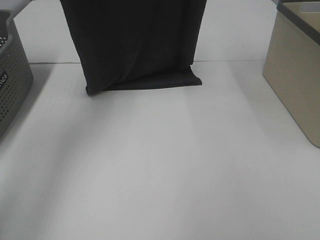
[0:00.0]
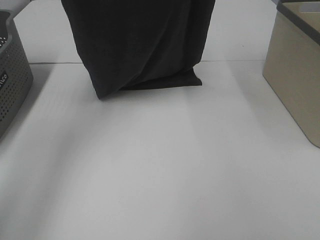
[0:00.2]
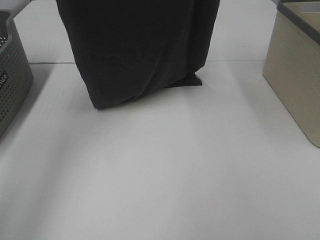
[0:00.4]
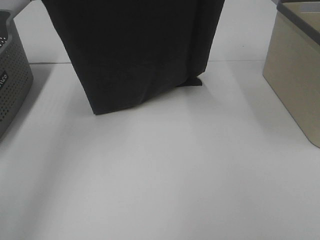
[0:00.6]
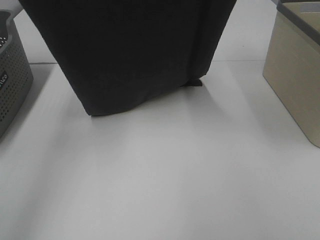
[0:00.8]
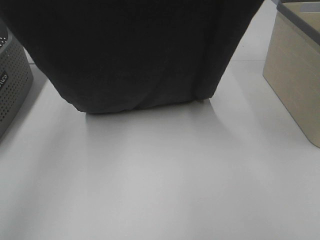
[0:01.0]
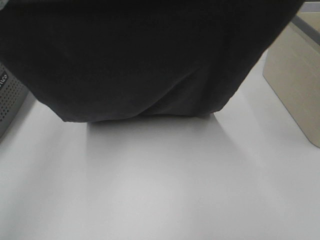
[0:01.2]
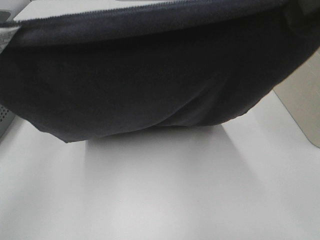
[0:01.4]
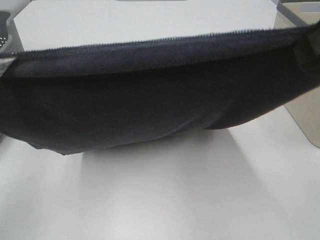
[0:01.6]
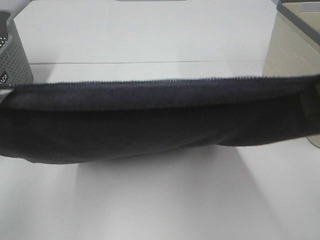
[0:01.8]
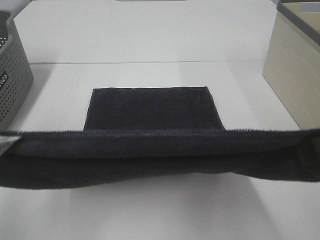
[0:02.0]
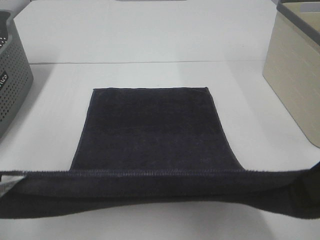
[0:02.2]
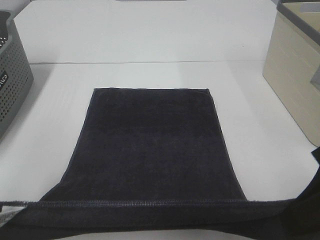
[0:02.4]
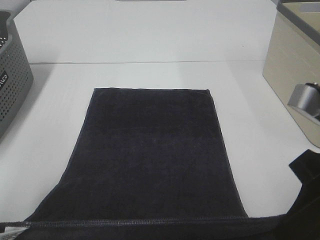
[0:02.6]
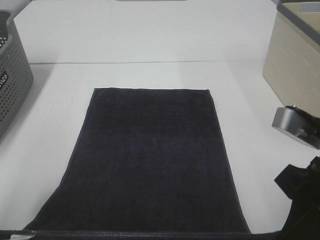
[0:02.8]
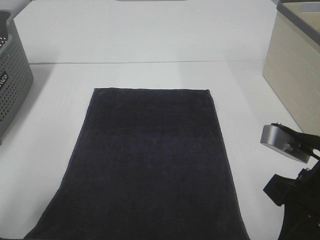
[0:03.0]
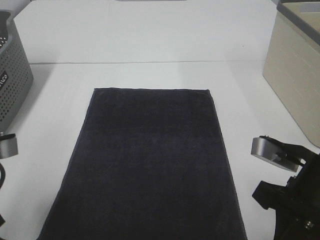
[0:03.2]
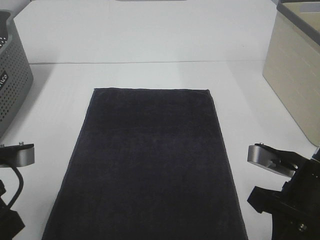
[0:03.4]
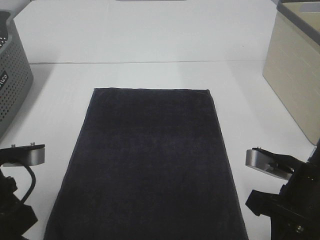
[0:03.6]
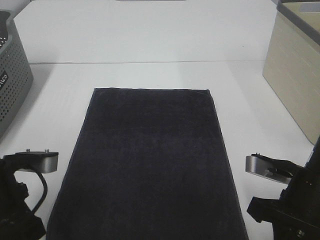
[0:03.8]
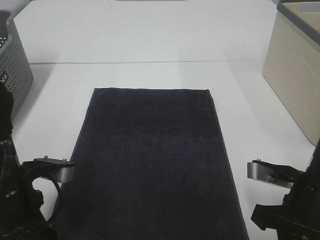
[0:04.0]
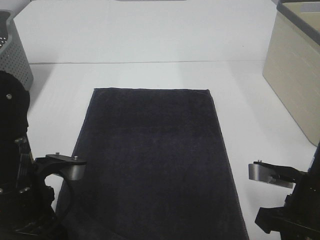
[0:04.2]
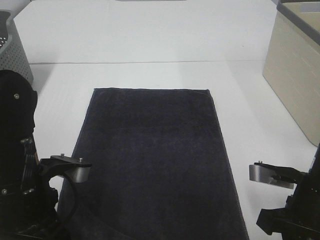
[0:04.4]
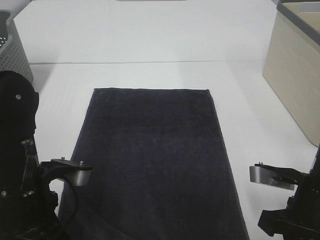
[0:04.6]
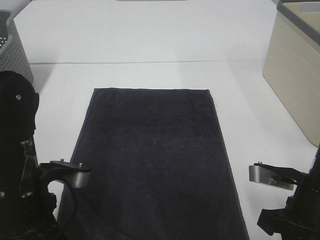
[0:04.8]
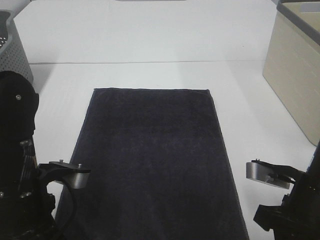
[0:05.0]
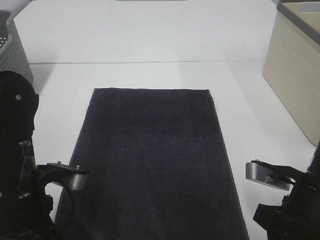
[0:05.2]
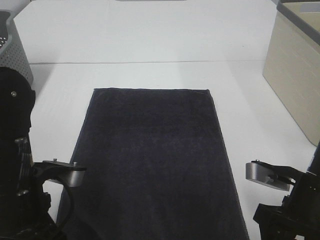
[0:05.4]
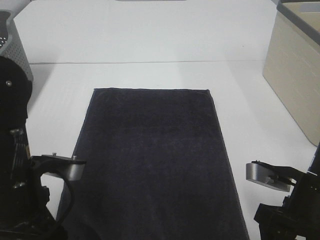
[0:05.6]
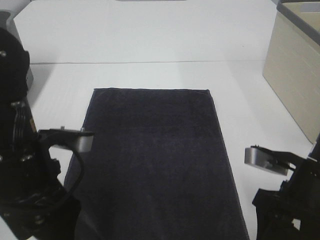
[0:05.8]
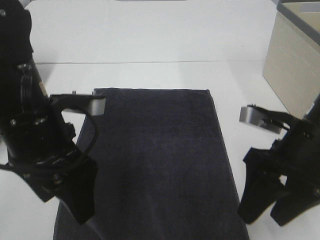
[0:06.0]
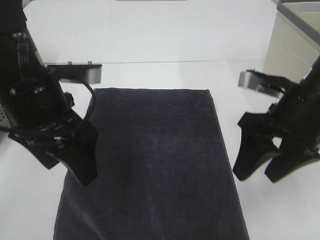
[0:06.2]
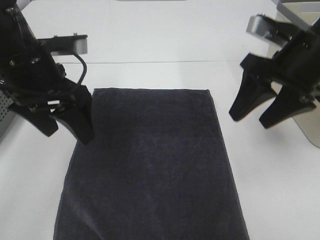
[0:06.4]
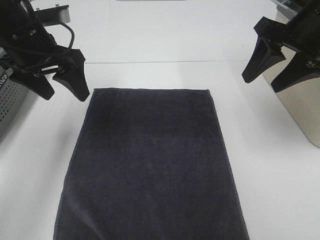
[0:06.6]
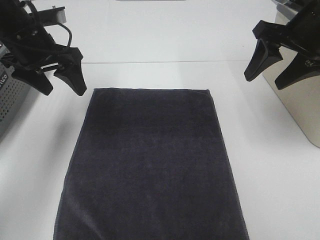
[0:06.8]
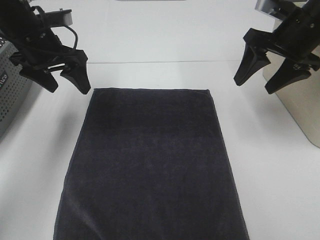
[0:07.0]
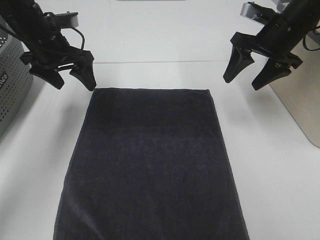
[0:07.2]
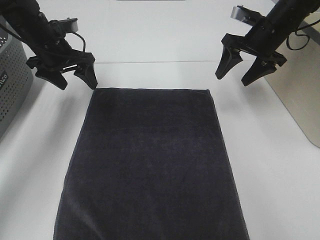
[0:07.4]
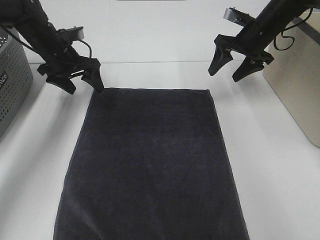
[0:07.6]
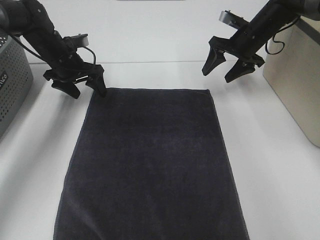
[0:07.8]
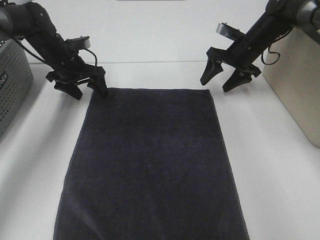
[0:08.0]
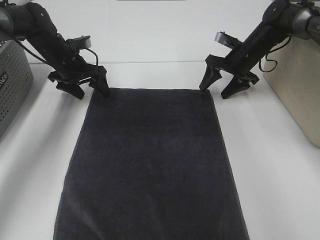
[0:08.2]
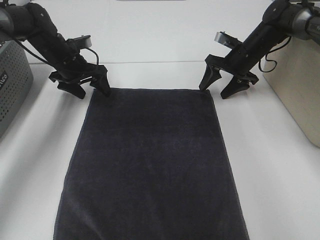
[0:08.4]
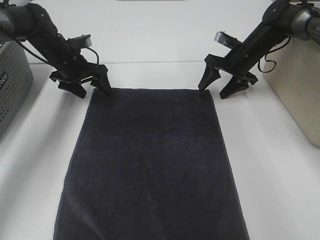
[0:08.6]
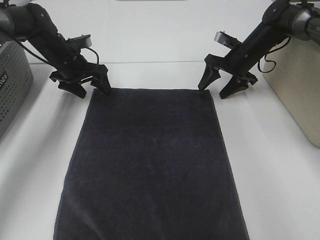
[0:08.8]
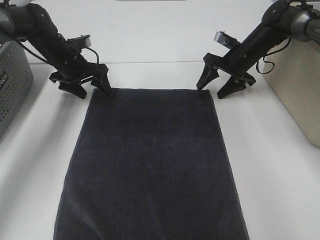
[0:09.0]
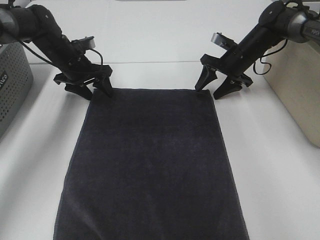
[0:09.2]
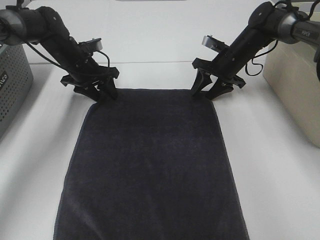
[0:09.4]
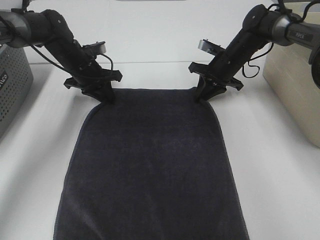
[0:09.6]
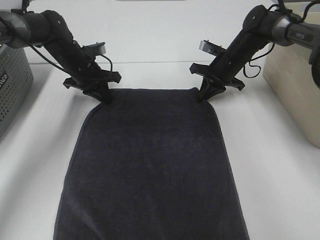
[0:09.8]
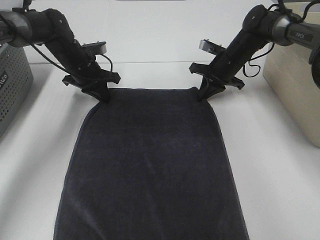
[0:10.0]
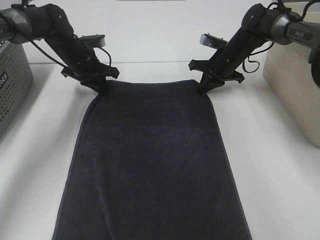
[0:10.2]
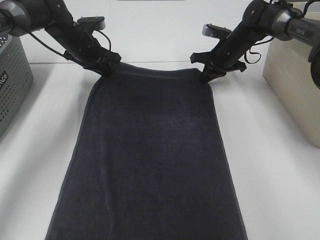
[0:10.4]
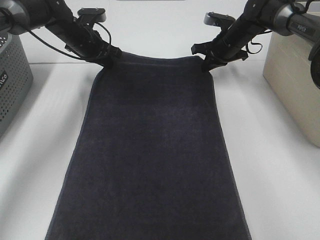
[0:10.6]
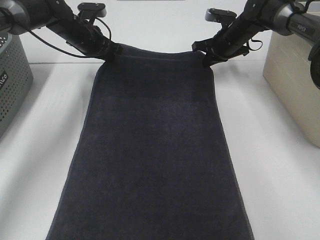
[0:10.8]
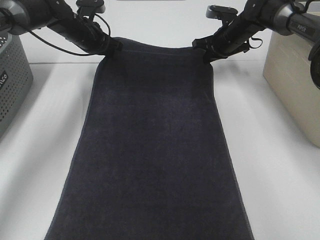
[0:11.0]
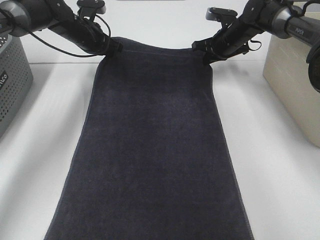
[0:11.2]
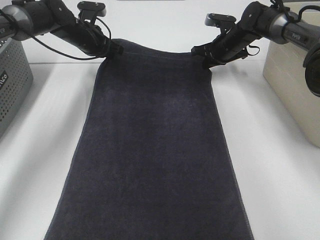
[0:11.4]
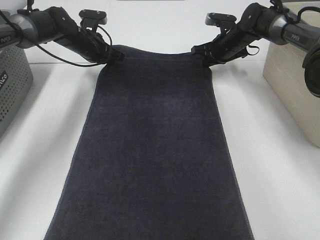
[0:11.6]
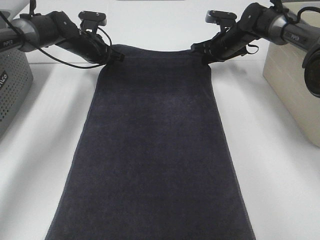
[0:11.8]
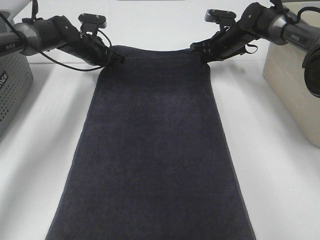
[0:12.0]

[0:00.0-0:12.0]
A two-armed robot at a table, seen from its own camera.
Task of the whole recording: Remove the towel and place it.
Step, 0.0 to 6.4 s: Left hand:adjust the gray towel.
Step, 0.0 to 6.4 s: Right hand:adjust the gray towel.
0.0 to 1.6 s: The left gripper travels backward and downward by approximately 25 cm. Meanwhile the right gripper heads backward, covering some 25 cm.
1.6 to 3.0 s: The grippers both shift downward by some 15 cm.
3.0 to 4.4 s: The right gripper travels downward by some 5 cm. The left gripper travels downward and to the right by approximately 10 cm.
4.4 to 6.0 s: Both grippers move upward, approximately 5 cm. The right gripper opens its fingers. The left gripper opens its fingers.
6.0 to 7.6 s: The grippers both shift forward by some 30 cm.
7.6 to 9.0 s: The right gripper shifts roughly 5 cm downward.
9.0 to 10.4 s: The right gripper closes, while the left gripper moves approximately 5 cm, and closes its fingers.
10.4 to 12.0 s: There are only small adjustments of the grippers.

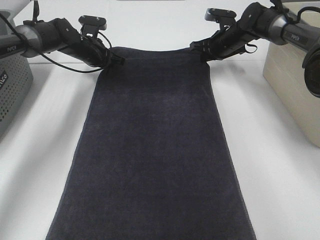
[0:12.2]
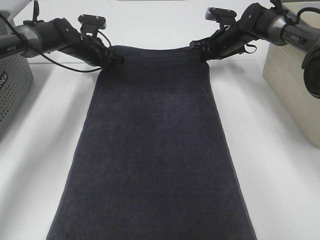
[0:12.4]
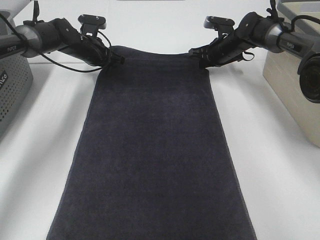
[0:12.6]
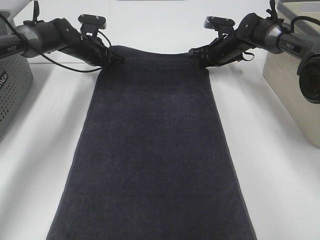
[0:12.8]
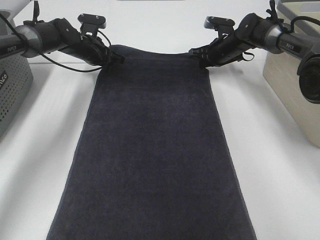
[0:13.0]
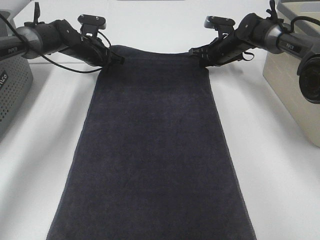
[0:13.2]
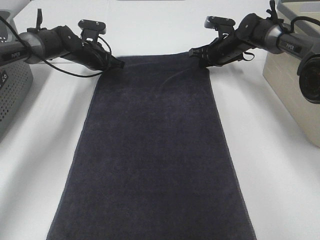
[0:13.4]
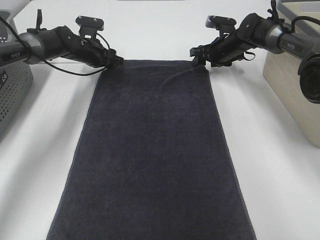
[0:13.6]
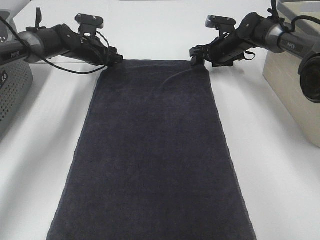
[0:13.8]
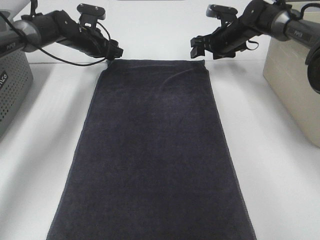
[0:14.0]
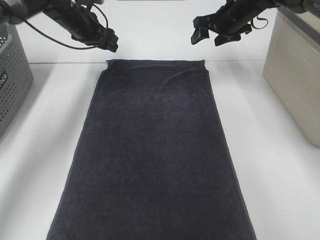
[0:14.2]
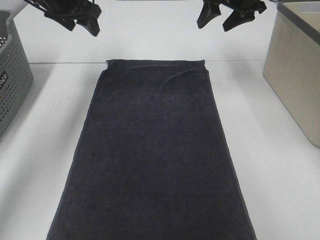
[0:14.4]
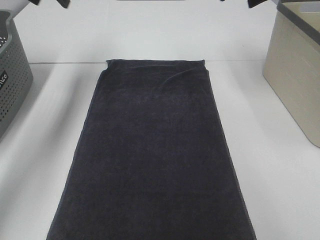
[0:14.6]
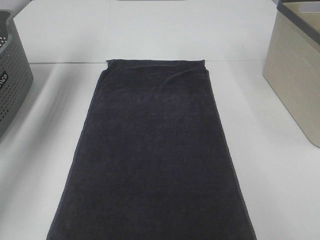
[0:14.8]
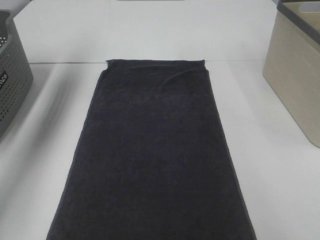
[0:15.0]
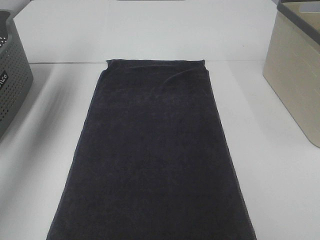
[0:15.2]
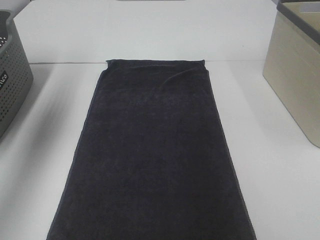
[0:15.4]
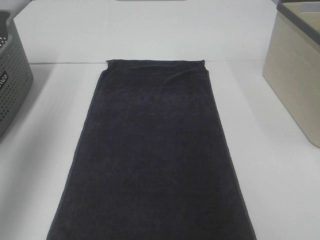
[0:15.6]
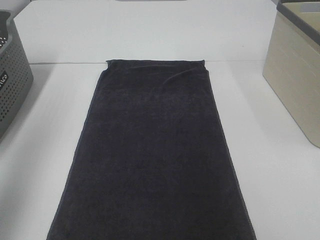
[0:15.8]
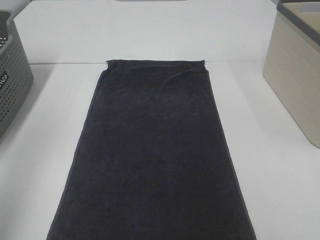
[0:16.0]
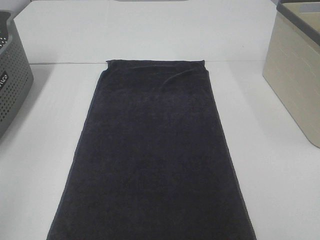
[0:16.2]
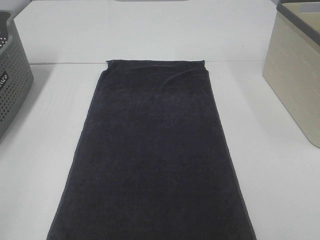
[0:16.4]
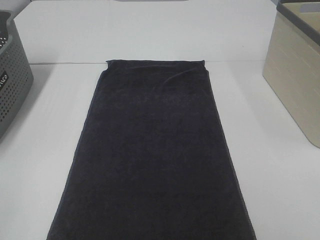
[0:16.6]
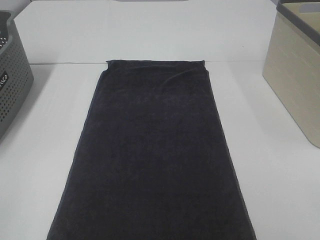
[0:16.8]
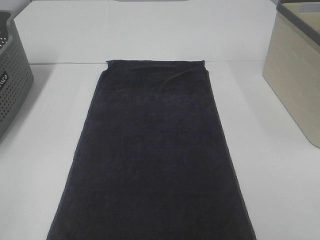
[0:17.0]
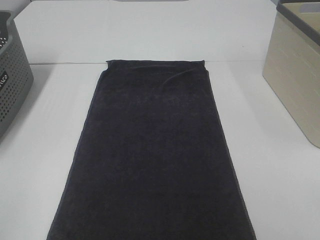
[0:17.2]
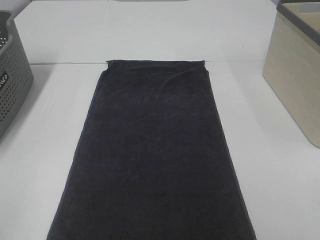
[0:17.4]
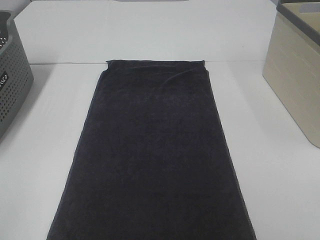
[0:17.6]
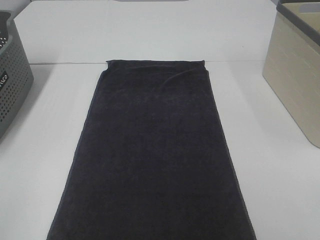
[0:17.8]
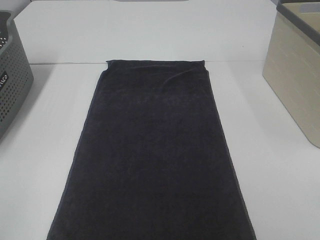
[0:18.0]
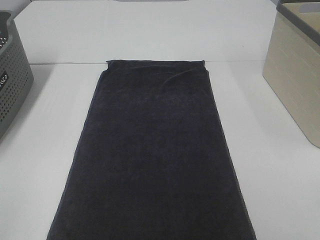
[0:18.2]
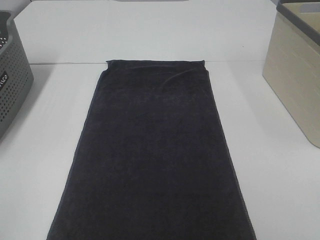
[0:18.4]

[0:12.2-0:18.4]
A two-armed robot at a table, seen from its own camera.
Task of the whole recording: Remove the towel and place it.
12.2 to 13.8 s: The left gripper opens up; the right gripper opens its fingers.
13.8 to 15.4 s: Both grippers travel together upward and backward, approximately 40 cm.
15.4 to 16.8 s: The left gripper shifts roughly 35 cm backward.

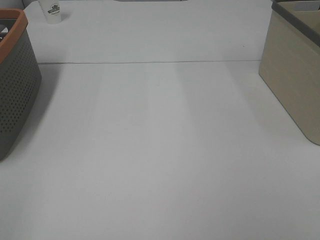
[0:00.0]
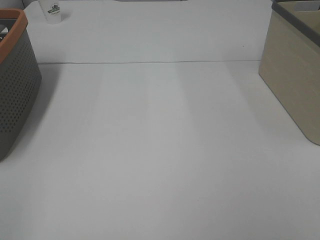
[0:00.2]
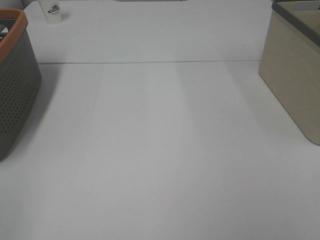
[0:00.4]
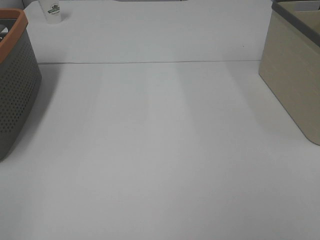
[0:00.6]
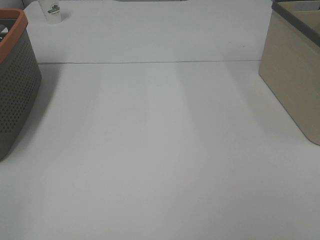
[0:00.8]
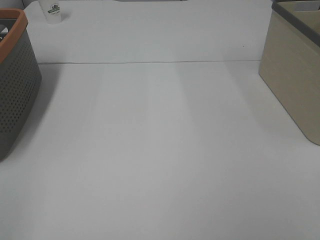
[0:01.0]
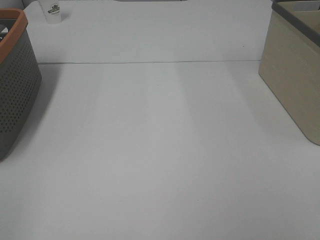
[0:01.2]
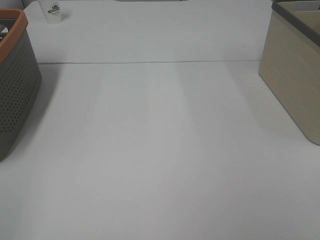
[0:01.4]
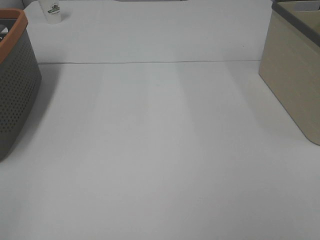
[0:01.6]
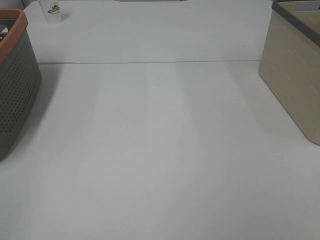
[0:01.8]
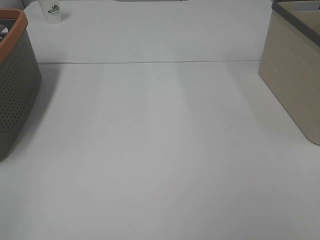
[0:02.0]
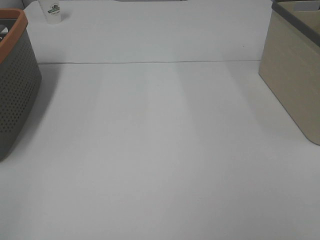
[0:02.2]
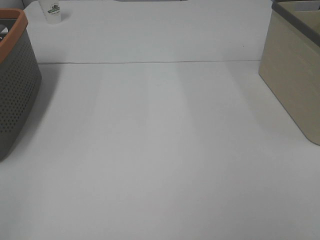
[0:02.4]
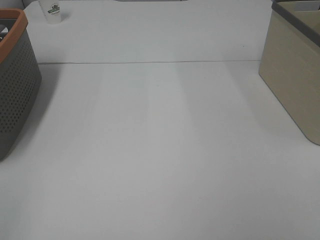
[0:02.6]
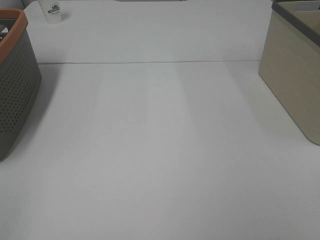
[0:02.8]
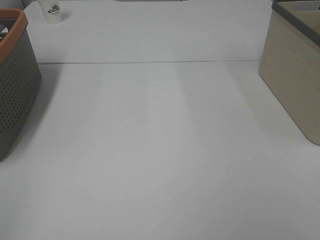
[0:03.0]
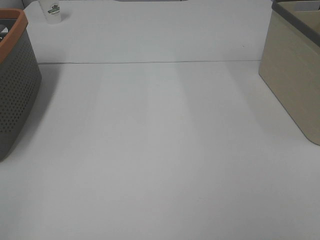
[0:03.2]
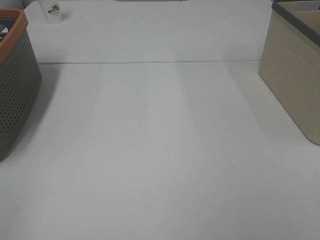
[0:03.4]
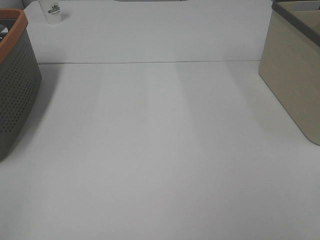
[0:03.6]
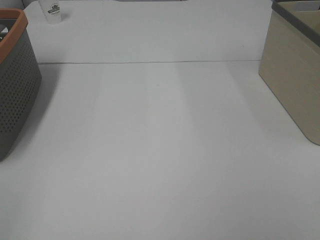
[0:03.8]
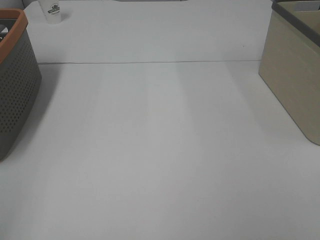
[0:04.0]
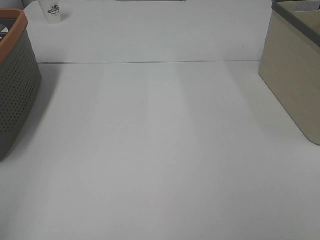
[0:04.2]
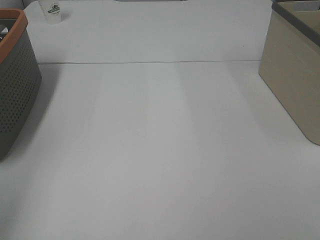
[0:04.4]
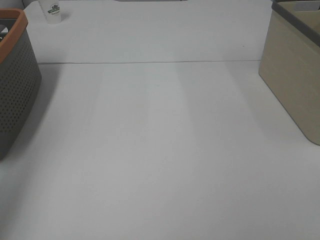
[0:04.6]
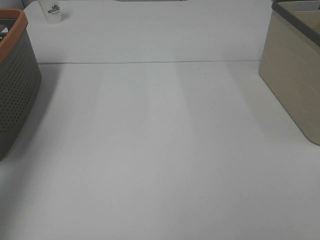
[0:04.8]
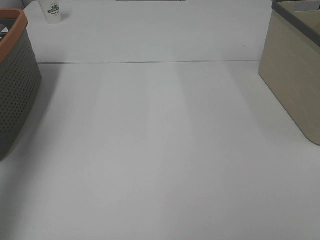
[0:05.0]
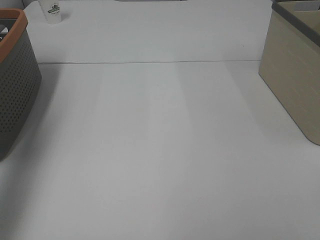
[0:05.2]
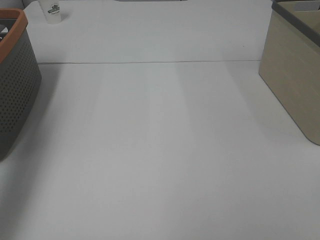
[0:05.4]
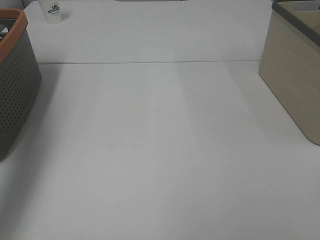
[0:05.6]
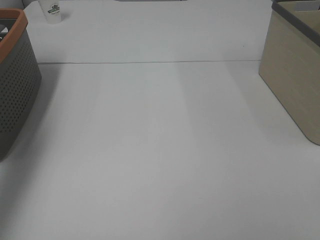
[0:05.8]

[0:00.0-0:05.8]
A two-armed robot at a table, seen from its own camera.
Task of the whole recording: Remove the towel and place it.
0.0 to 2.8 s: Neither gripper changes place.
4.4 to 5.8 s: The left gripper travels forward by some 25 cm.
